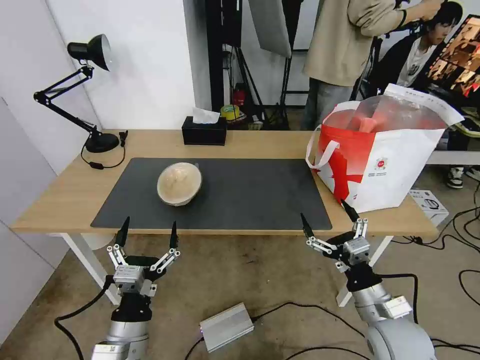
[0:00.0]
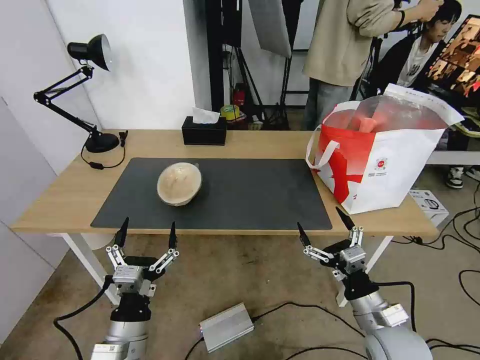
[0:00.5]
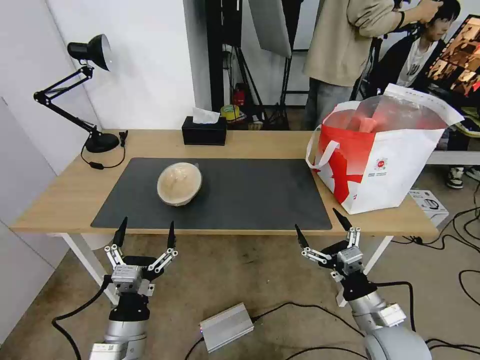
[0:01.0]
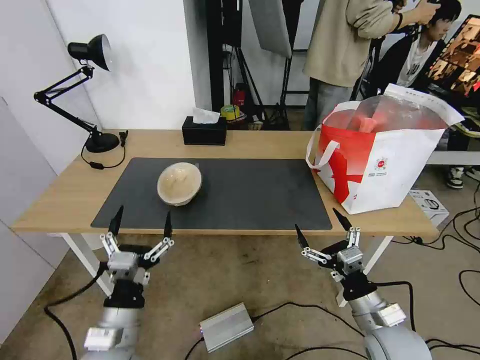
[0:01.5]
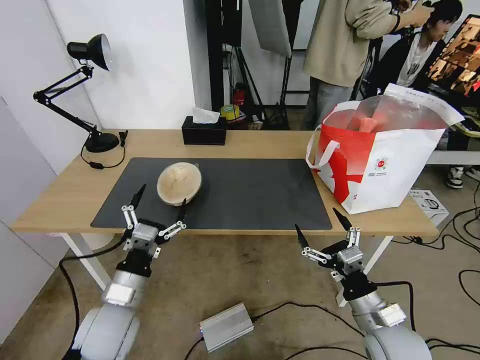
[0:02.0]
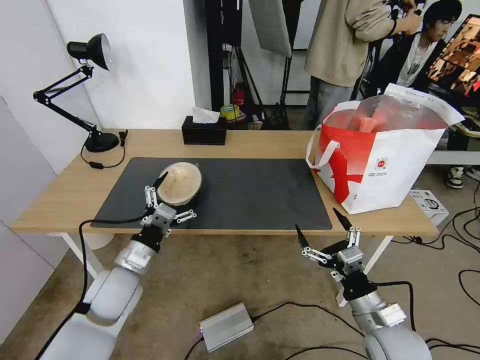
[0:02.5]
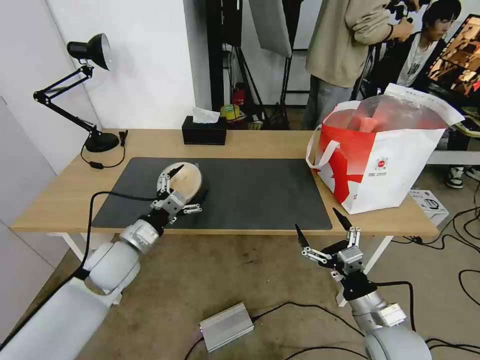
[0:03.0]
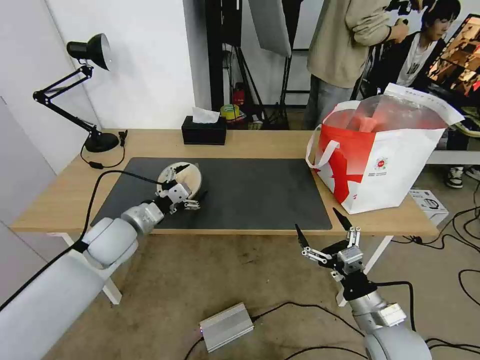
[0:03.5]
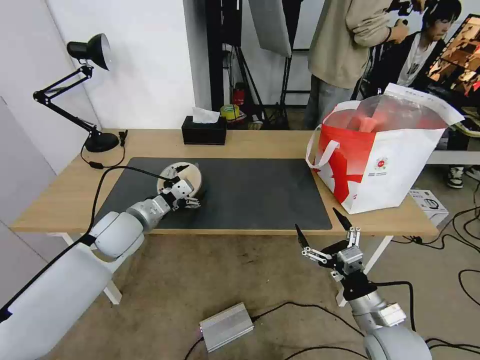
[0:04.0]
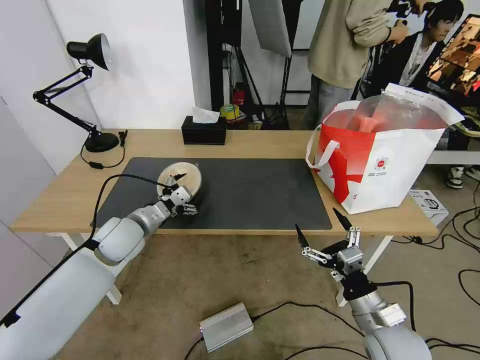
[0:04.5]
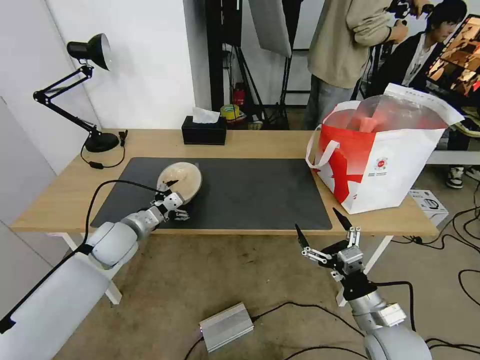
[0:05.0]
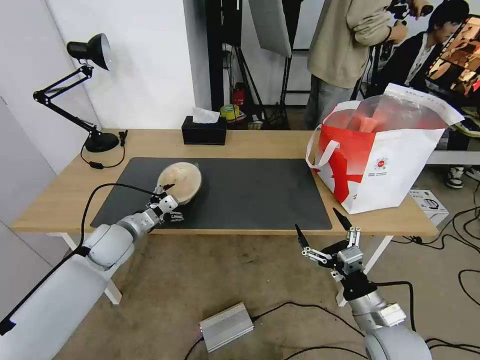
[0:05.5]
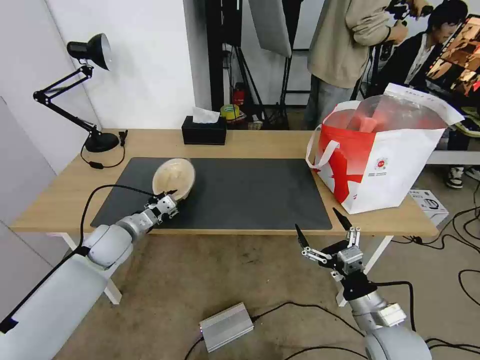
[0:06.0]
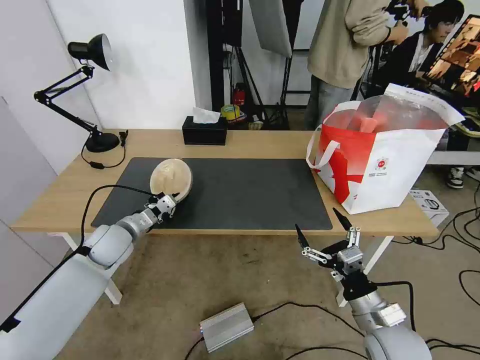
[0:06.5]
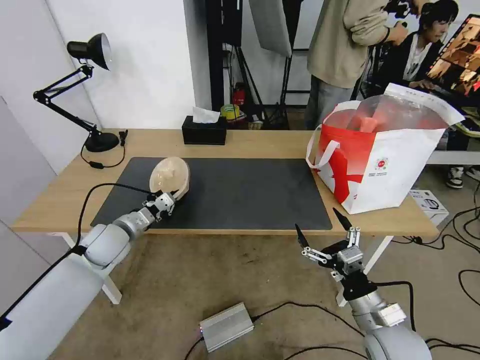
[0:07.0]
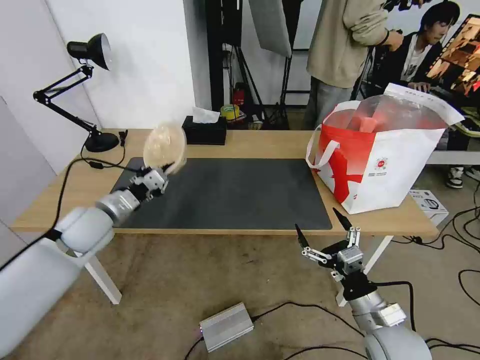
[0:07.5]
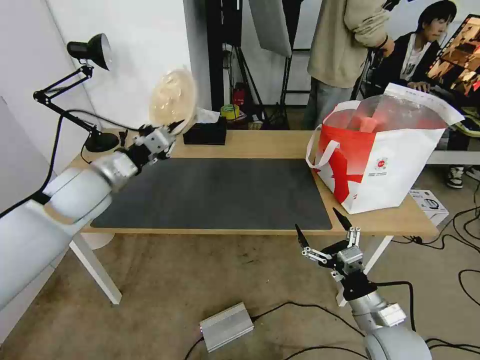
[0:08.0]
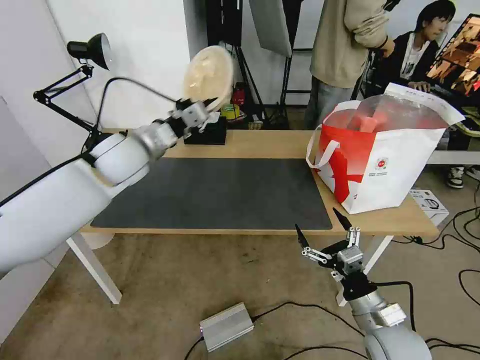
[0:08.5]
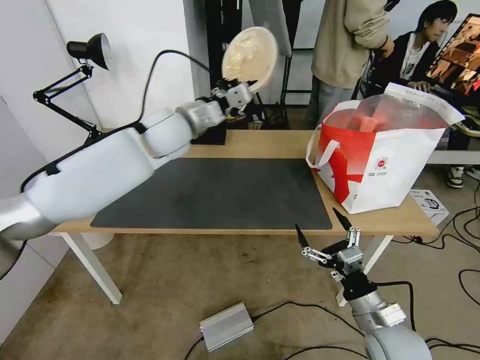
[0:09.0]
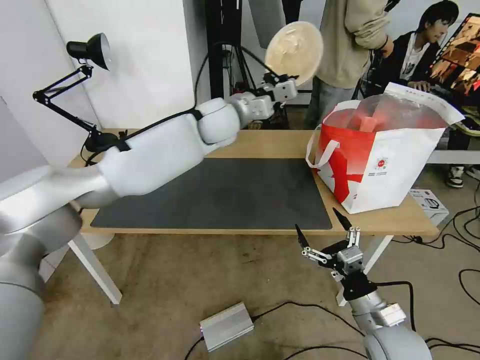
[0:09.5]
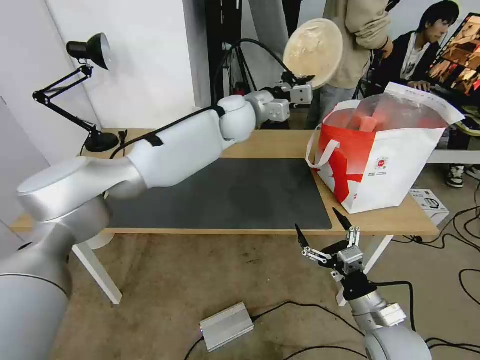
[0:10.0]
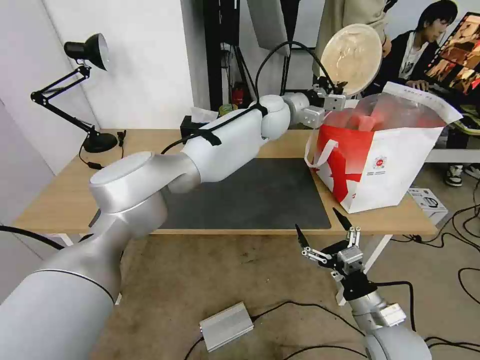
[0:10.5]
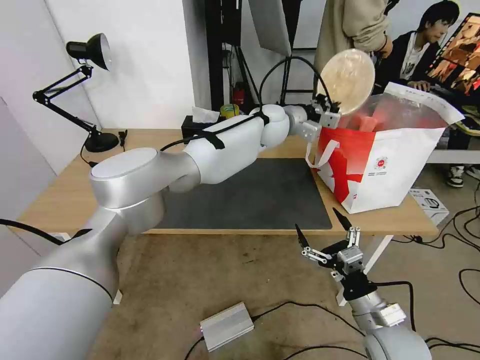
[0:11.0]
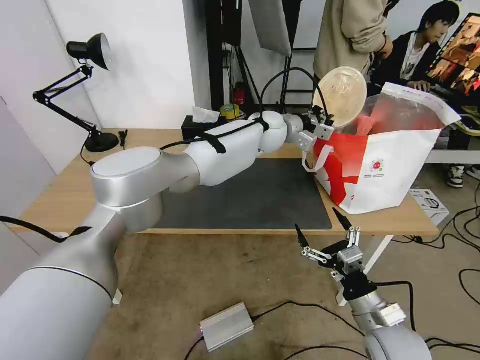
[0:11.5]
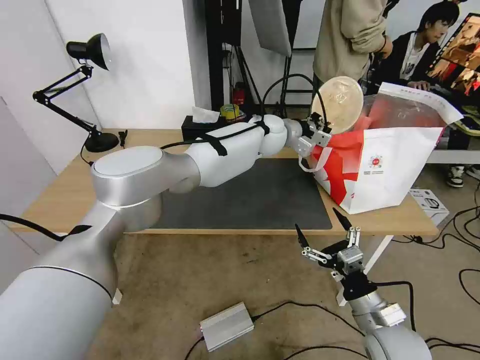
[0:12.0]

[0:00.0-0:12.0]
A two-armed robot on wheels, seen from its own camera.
Task of the whole recording: Pick up the trash from the table and place it into the takeout bag.
0:00.0 to 0:02.0: The left gripper shifts roughly 10 cm forward.
0:02.0 to 0:04.0: The left gripper heads forward, covering some 15 cm.
0:04.0 to 0:06.0: The left gripper goes approximately 5 cm downward, and closes its fingers.
0:06.0 to 0:08.0: The left gripper moves upward, approximately 15 cm, and closes.
0:08.0 to 0:10.0: The left gripper moves to the right and forward, about 35 cm.
0:10.0 to 0:12.0: The left gripper heads to the right and downward, covering some 10 cm.

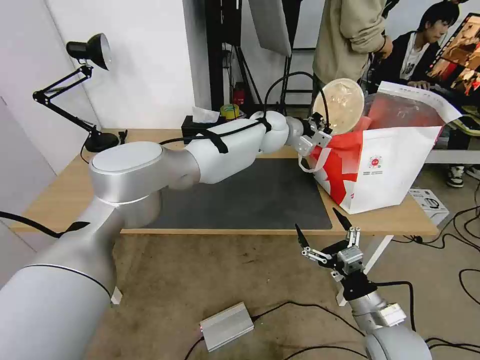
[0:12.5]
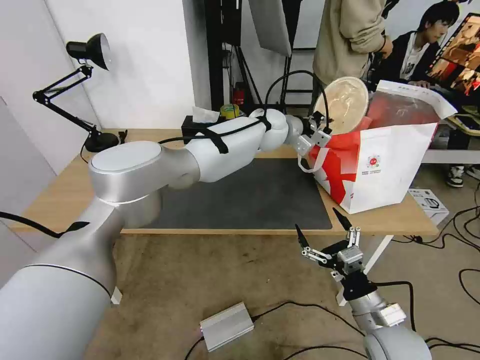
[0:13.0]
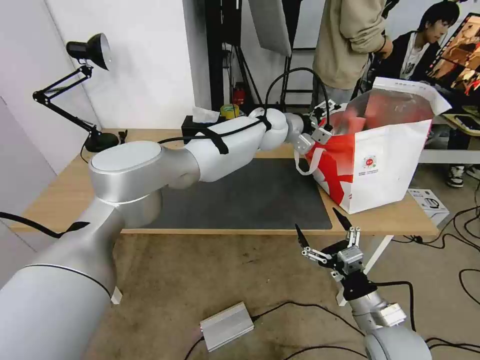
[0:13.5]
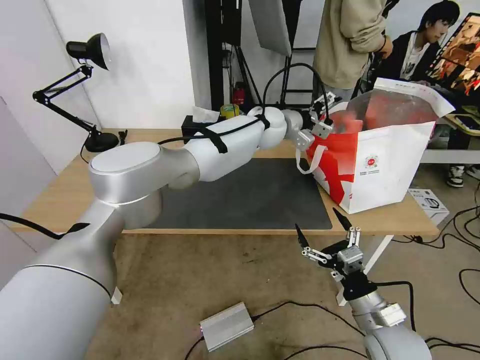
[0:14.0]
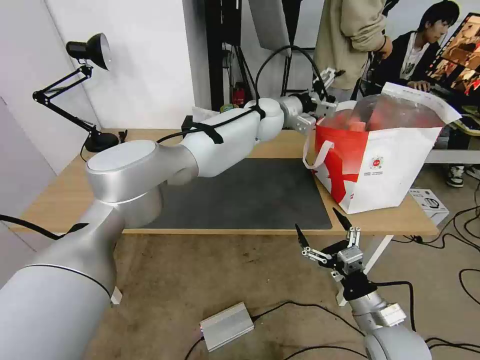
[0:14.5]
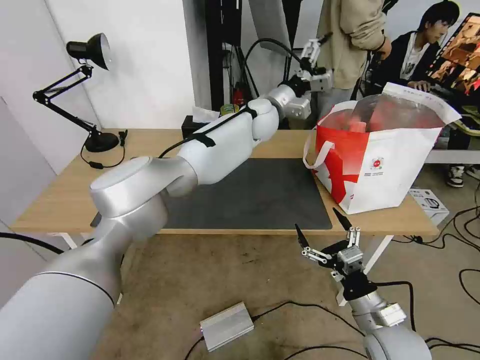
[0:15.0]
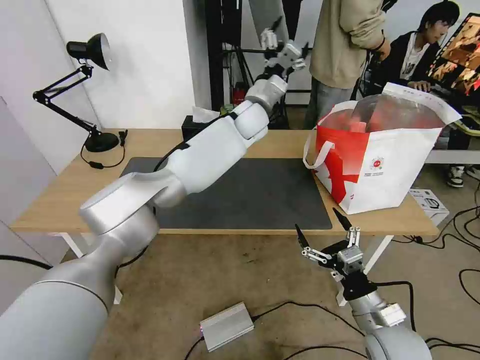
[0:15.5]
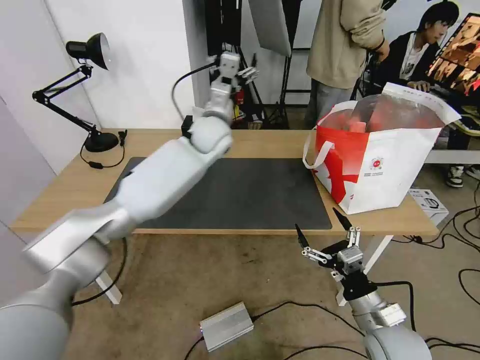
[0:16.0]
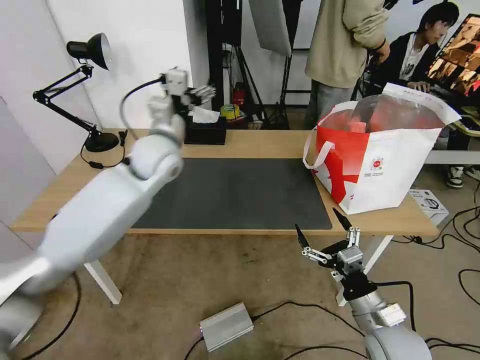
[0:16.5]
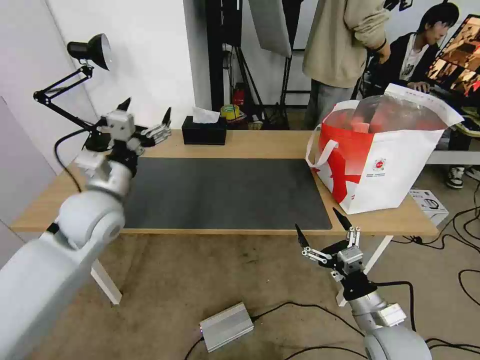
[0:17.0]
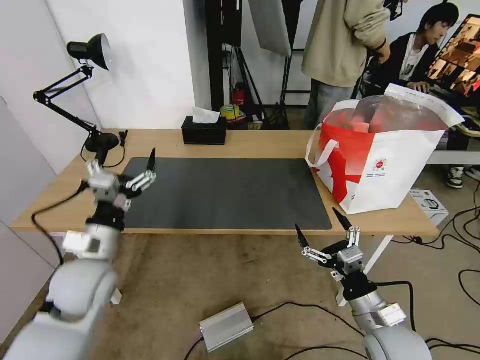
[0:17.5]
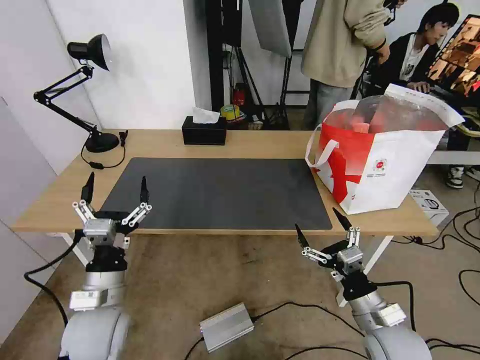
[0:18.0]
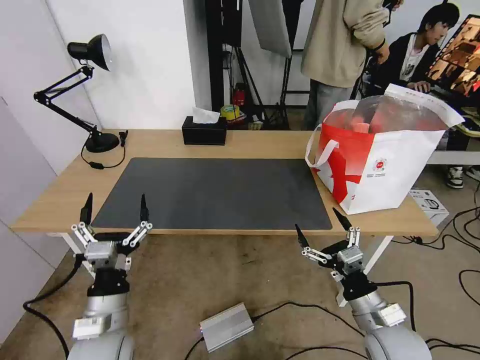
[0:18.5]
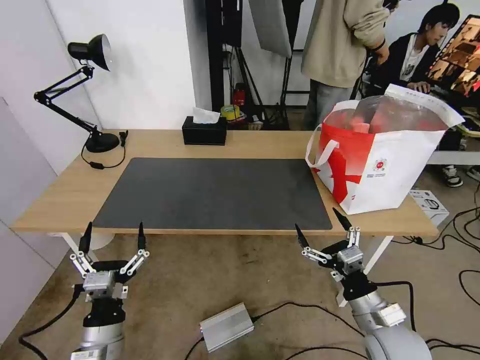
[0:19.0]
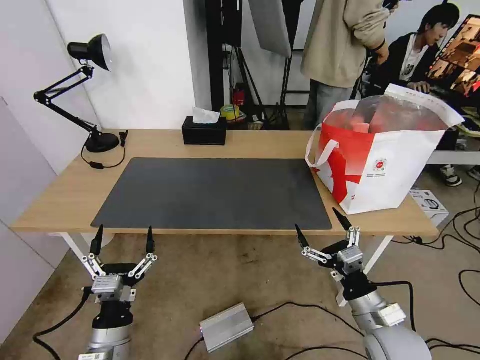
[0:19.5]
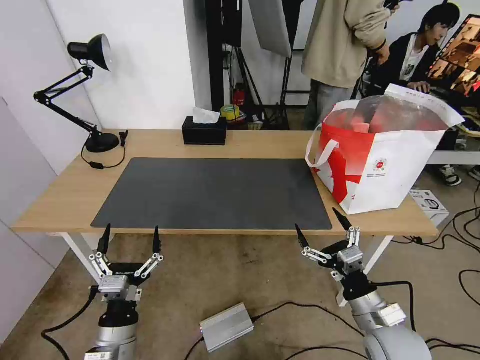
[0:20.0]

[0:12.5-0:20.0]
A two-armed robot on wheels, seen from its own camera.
Task of the whole recording: Pick up the trash from the table and place it into the takeout bag.
0:12.5 to 0:14.5: The left gripper opens its fingers.
0:14.5 to 0:16.5: The left gripper is displaced to the left and backward by about 30 cm.
0:16.5 to 0:18.0: The left gripper goes roughly 30 cm backward and downward.
0:18.0 to 0:20.0: The left gripper goes about 10 cm downward and backward.
